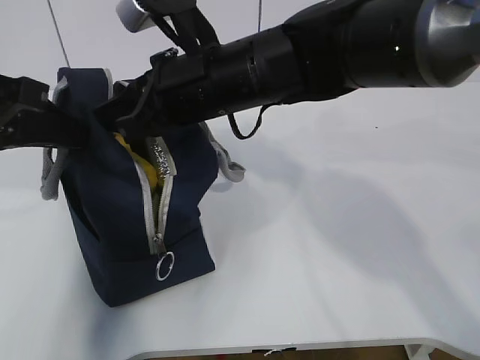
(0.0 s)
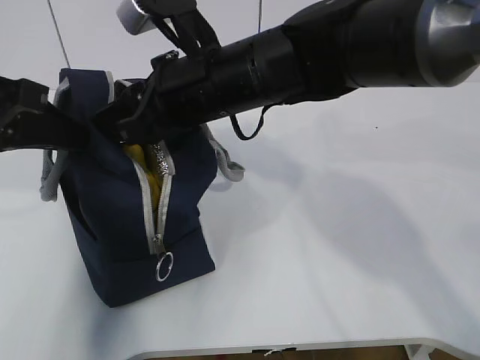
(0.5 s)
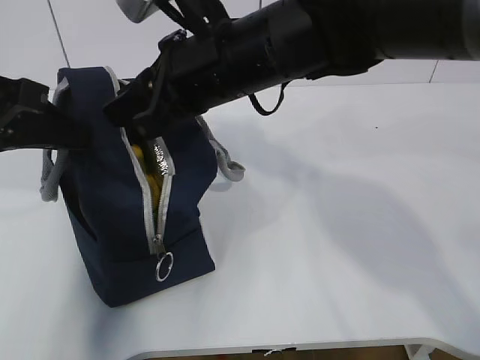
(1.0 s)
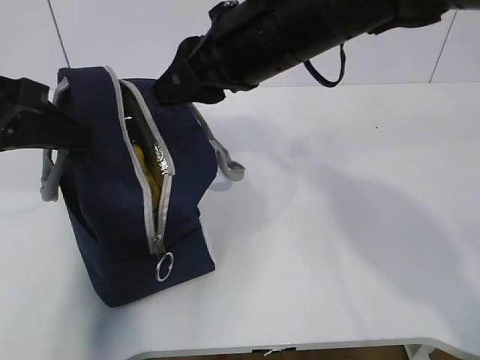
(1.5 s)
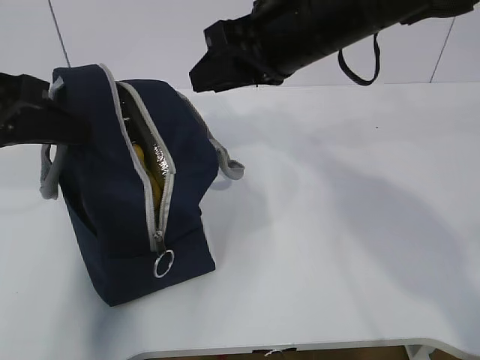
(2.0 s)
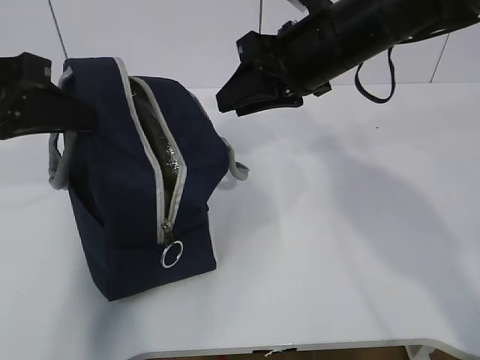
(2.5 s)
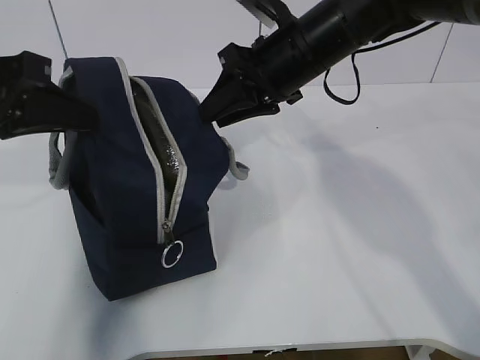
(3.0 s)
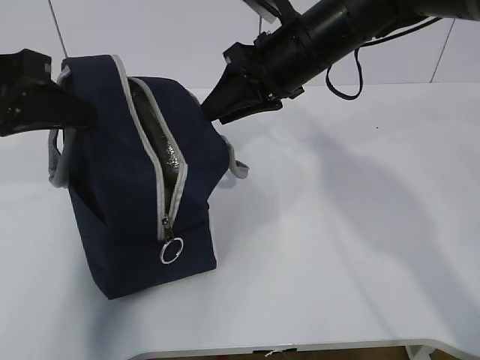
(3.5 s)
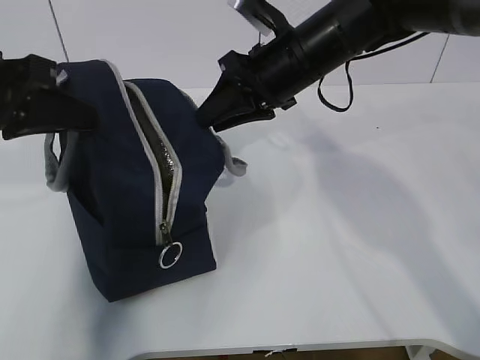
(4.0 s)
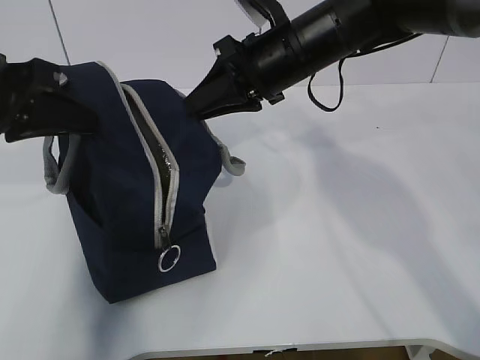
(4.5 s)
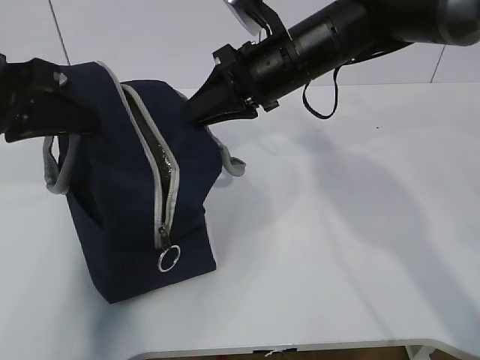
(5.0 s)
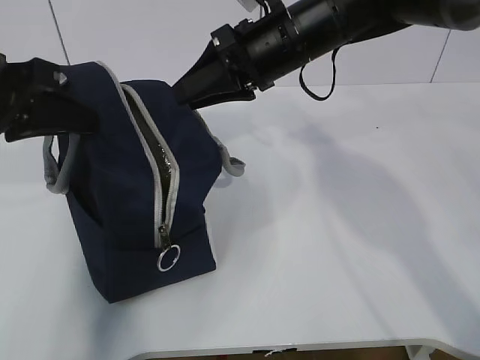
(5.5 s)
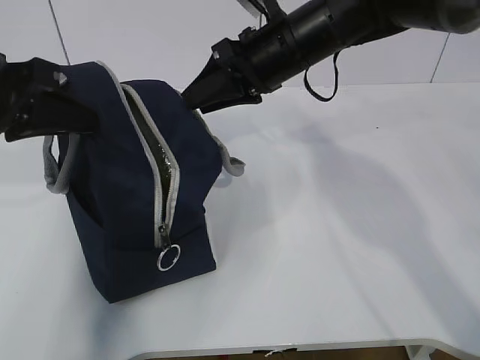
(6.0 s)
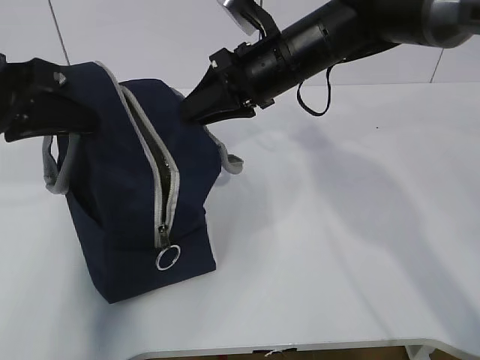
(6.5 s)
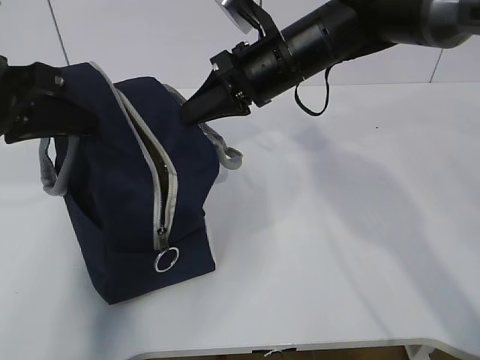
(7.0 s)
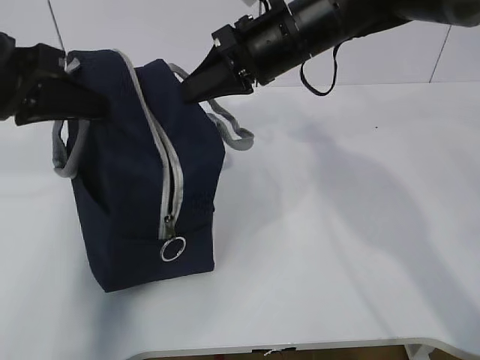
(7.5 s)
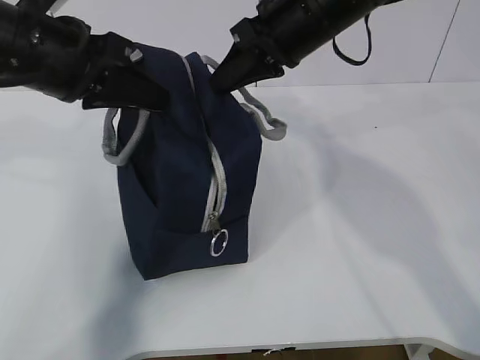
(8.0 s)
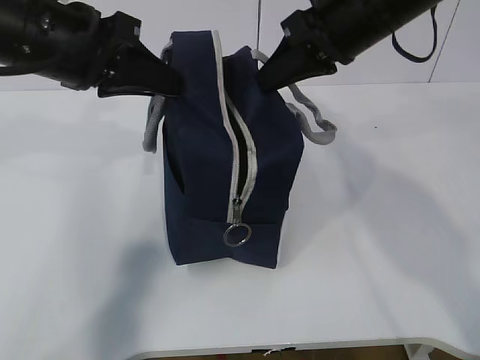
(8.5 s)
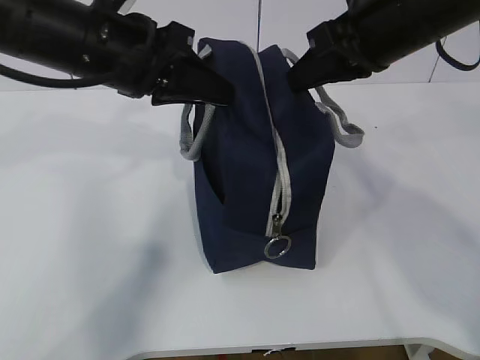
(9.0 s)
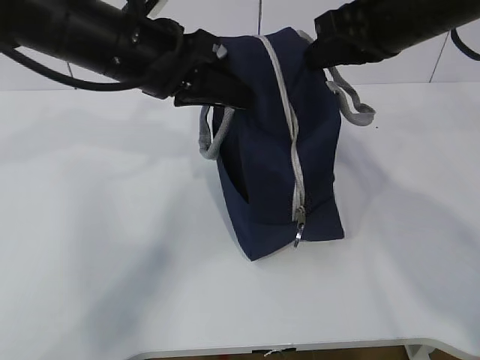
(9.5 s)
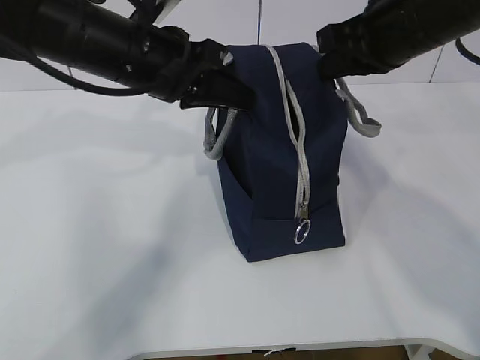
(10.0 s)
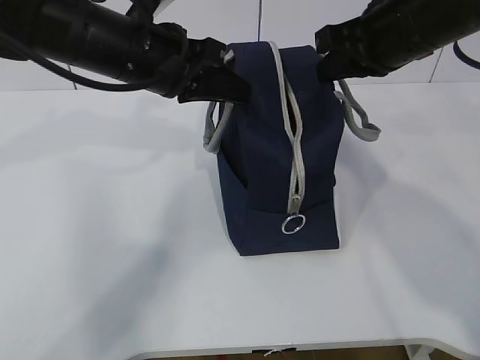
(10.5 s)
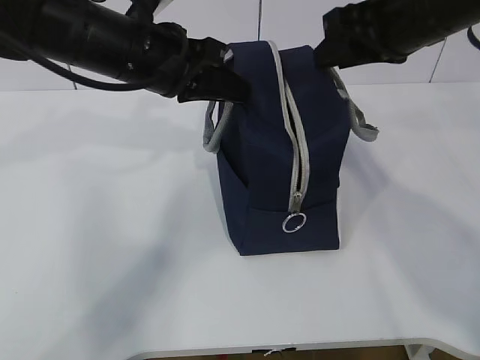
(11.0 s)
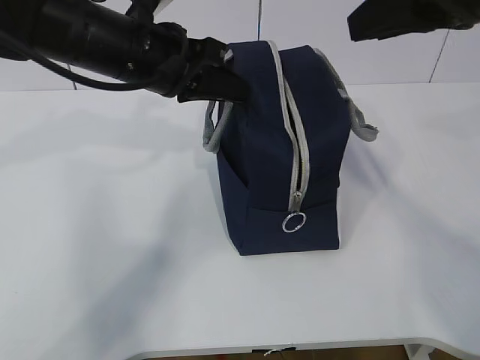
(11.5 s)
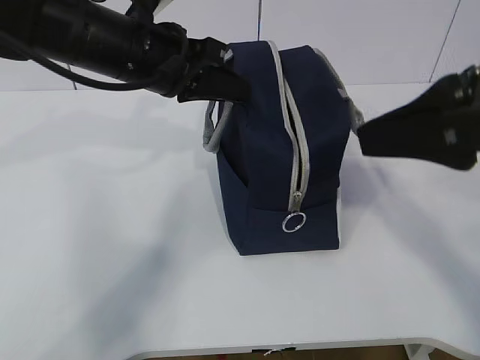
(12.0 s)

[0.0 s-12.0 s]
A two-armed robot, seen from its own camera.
0.0 to 2.0 s: The right gripper is displaced to the right and upward by approximately 10 cm, and opens its fingers.
2.0 to 4.0 s: The right gripper travels forward and downward by about 10 cm.
4.0 to 6.0 s: There are only small adjustments of the grippers.
6.0 to 8.0 s: The right gripper closes up; the left gripper is displaced to the right by approximately 5 cm.
8.0 to 10.0 s: The two grippers go approximately 10 cm to the right.
10.0 to 12.0 s: The right gripper is displaced backward by about 15 cm, and opens its fingers.

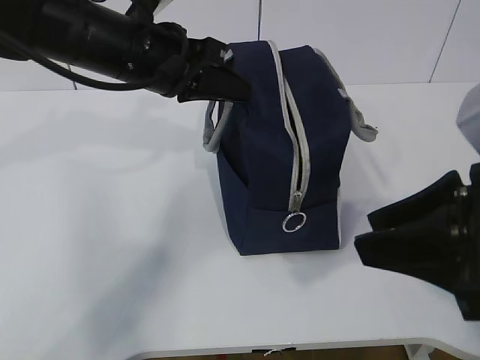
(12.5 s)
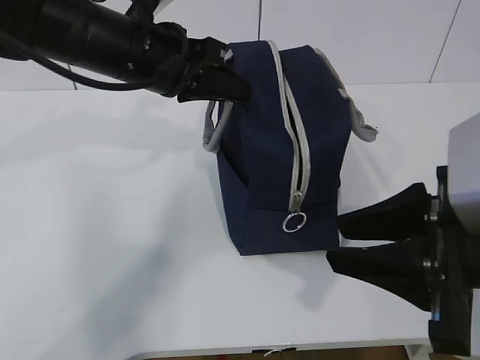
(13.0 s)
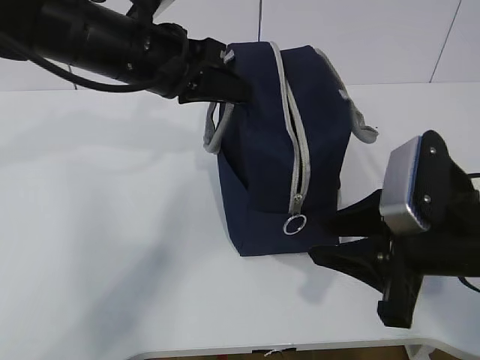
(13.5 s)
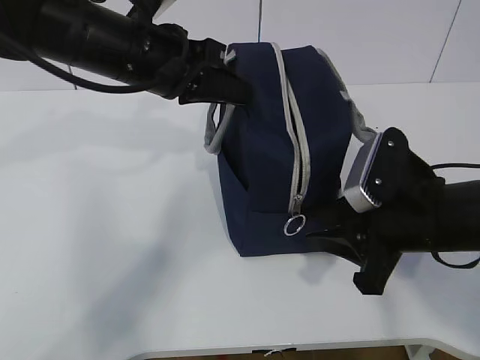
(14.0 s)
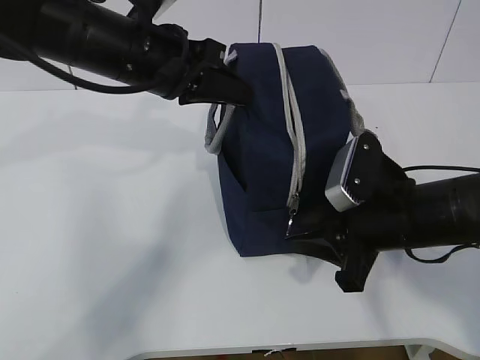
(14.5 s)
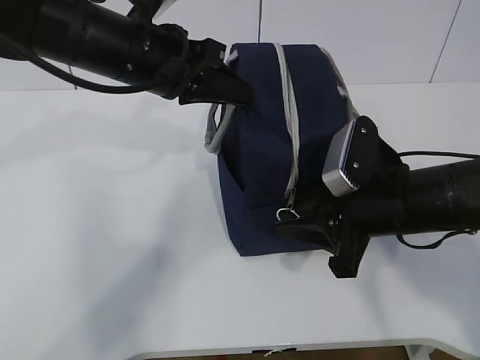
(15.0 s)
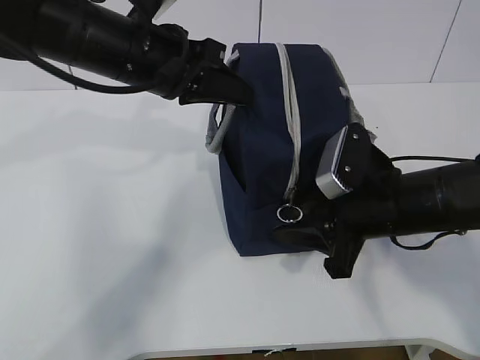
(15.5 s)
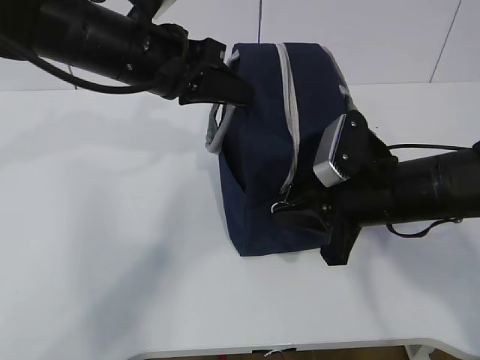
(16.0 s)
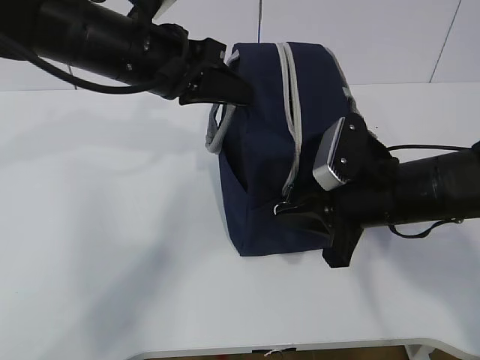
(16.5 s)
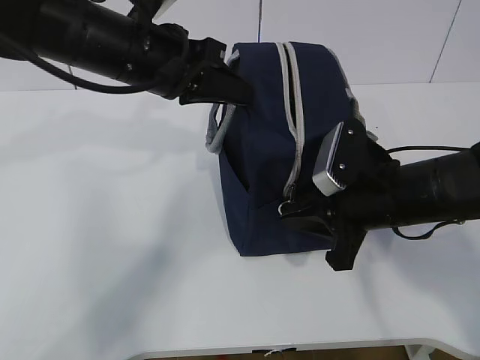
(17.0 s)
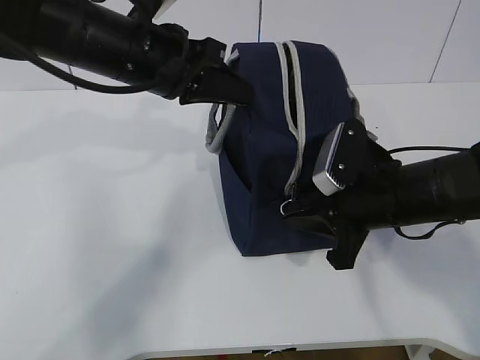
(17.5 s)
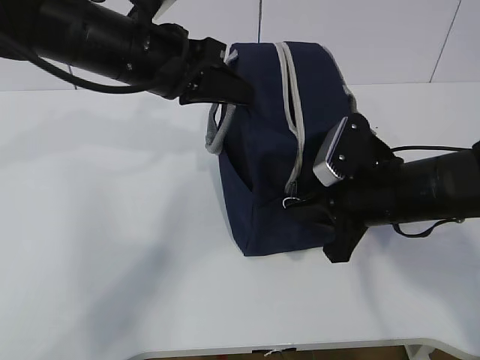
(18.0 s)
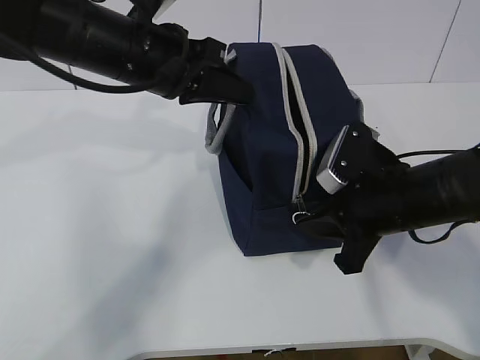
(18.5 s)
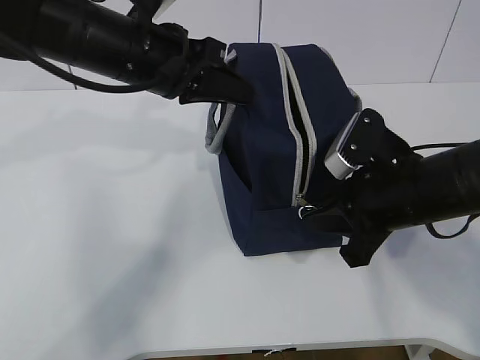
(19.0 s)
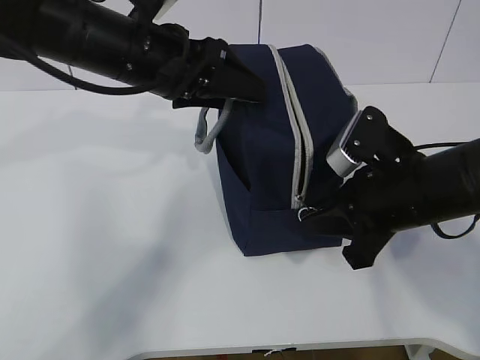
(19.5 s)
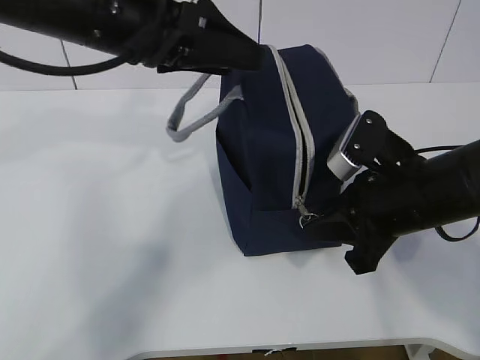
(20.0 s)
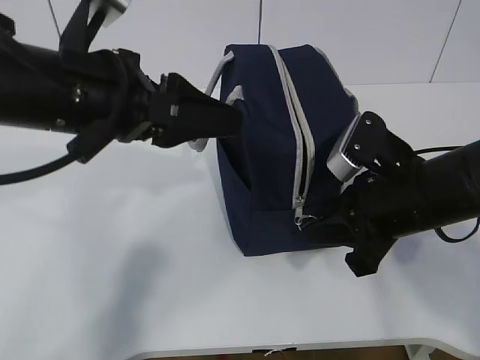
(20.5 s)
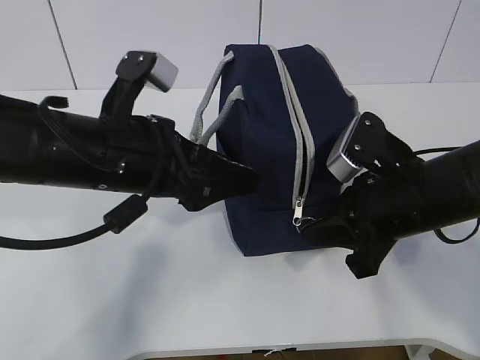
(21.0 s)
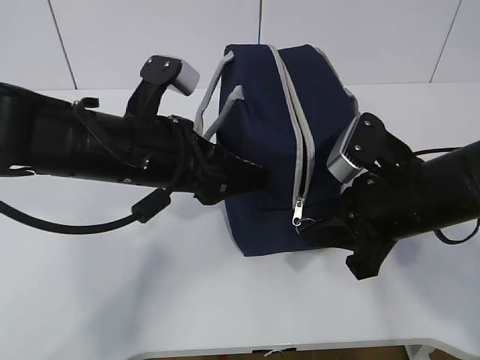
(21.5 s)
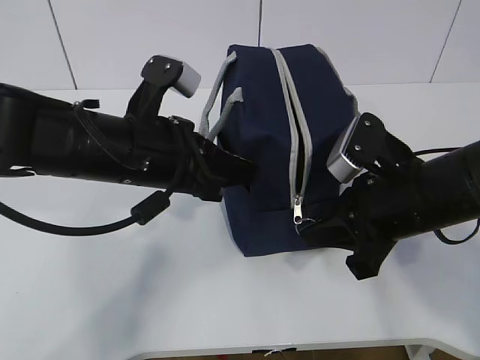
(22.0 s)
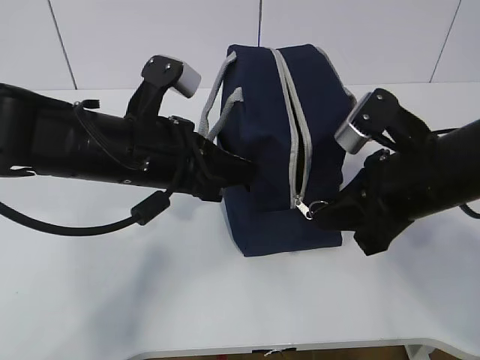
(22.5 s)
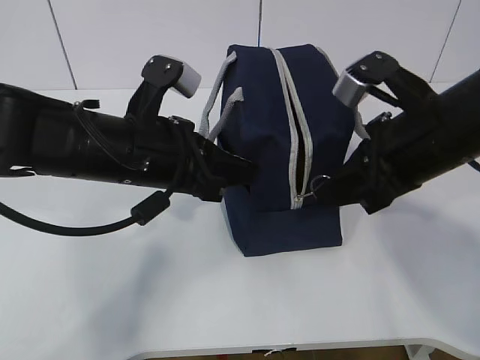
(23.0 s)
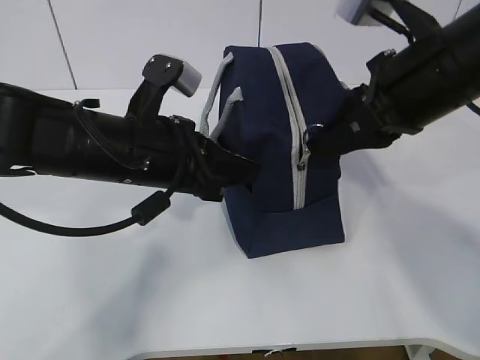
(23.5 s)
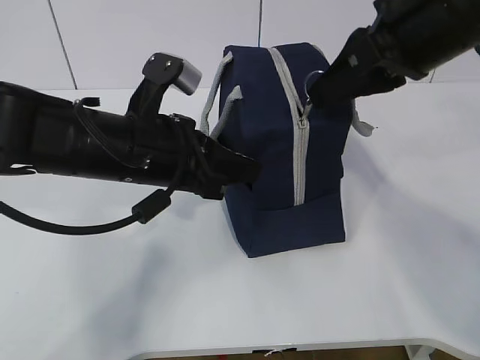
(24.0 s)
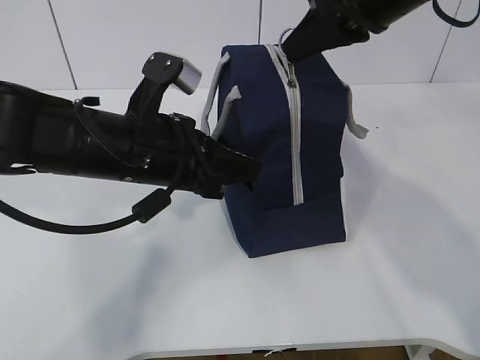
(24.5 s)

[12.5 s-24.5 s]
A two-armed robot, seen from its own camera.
Step, 17.5 to 20.5 s: Pull the zipper with your right hand.
12.5 to 14.5 s: The right gripper shifts approximately 15 cm downward and forward.
14.5 to 18.5 s: The grippers move only a little.
18.5 to 20.5 s: The left gripper shifts roughly 10 cm backward, and opens its fingers.
20.5 to 22.5 s: The left gripper goes roughly 5 cm downward, and closes its fingers.
22.5 to 24.5 s: The right gripper heads upward and forward, covering some 15 cm.

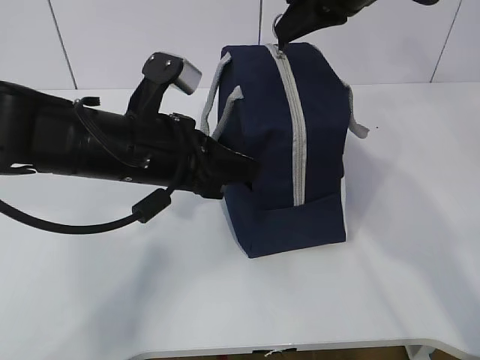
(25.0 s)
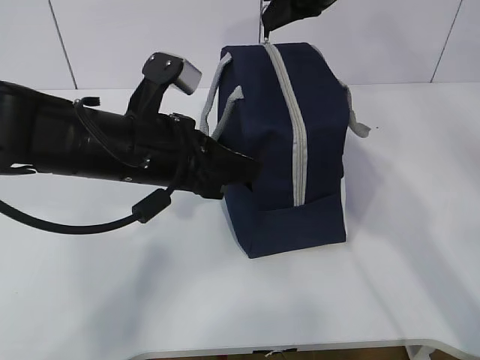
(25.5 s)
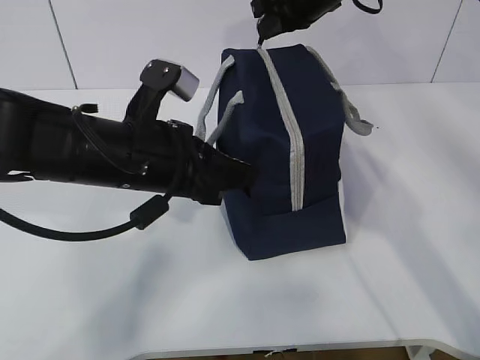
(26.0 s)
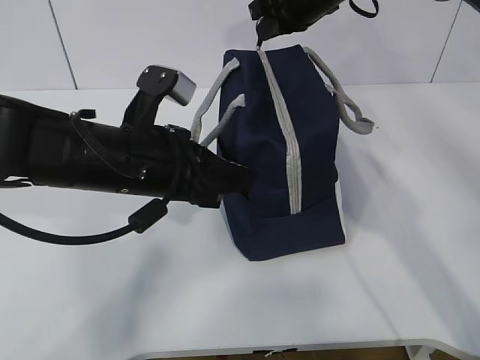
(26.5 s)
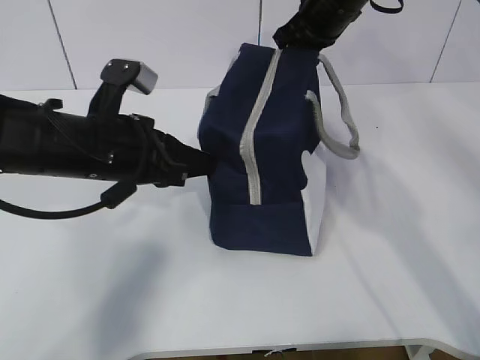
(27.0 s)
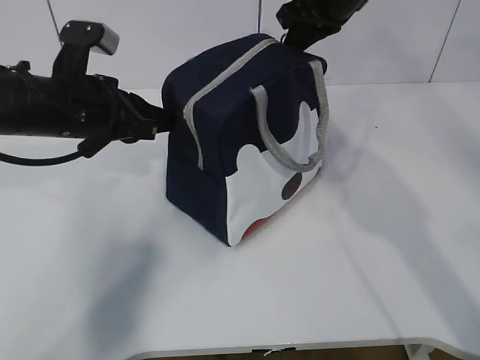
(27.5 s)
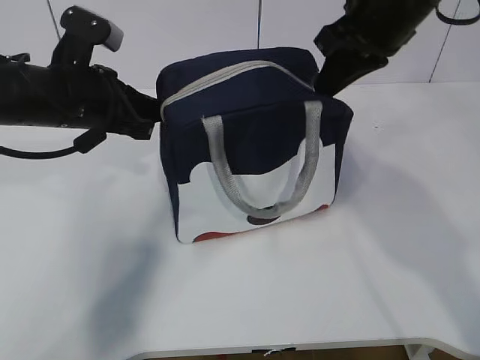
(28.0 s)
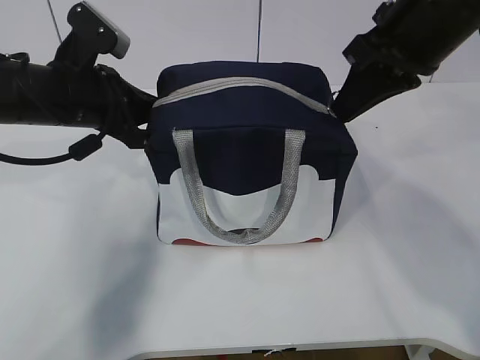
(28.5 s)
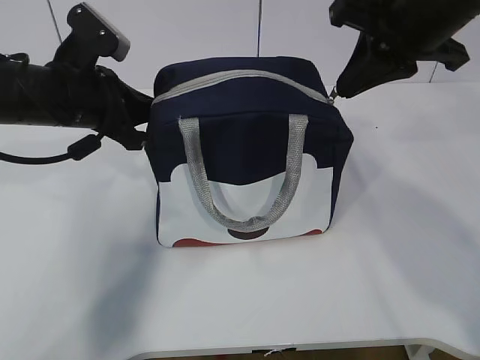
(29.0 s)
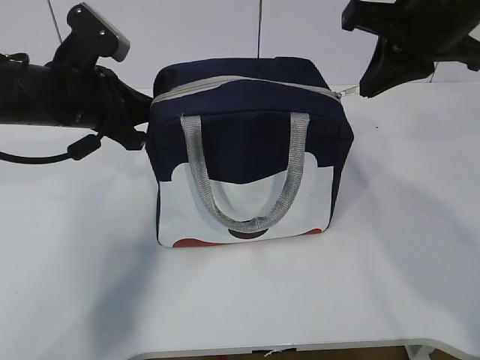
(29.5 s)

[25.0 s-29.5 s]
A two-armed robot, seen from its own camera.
25.0 to 27.0 s: The right gripper is displaced forward and downward by about 10 cm.
27.0 to 29.5 s: The left gripper shifts roughly 5 cm forward. Meanwhile the right gripper goes some 15 cm backward.
